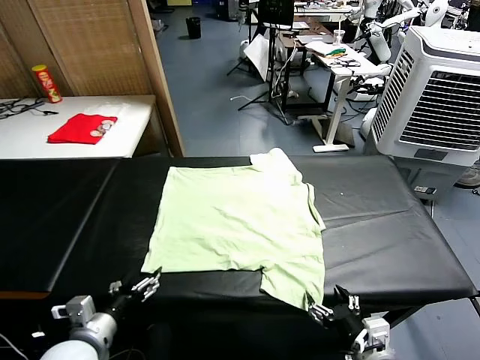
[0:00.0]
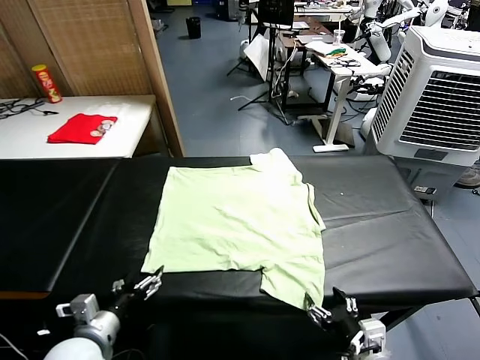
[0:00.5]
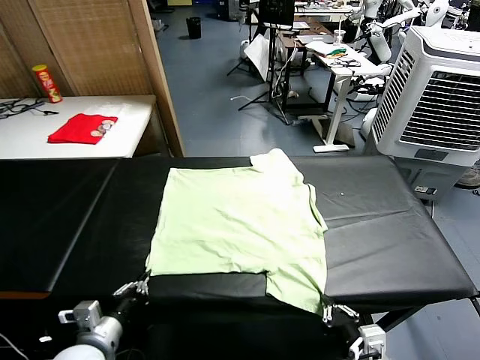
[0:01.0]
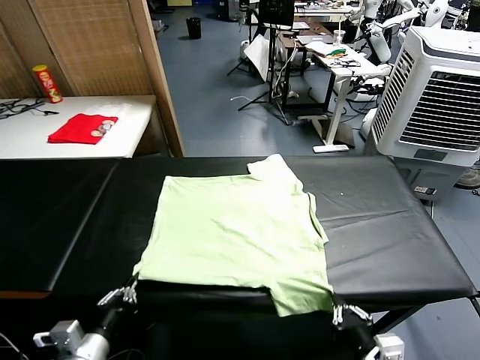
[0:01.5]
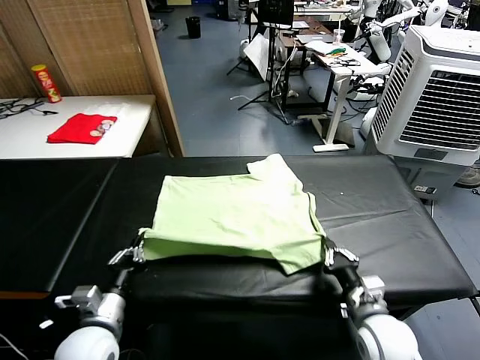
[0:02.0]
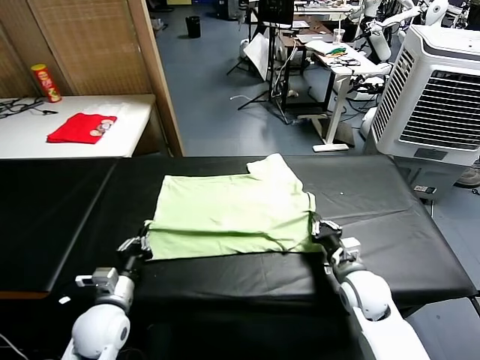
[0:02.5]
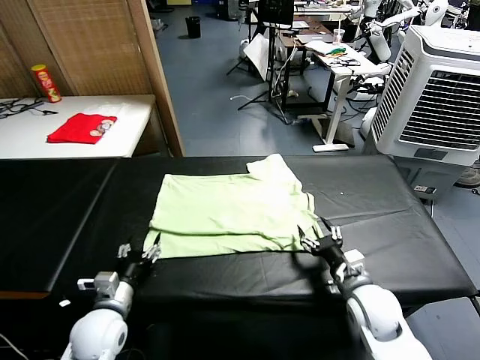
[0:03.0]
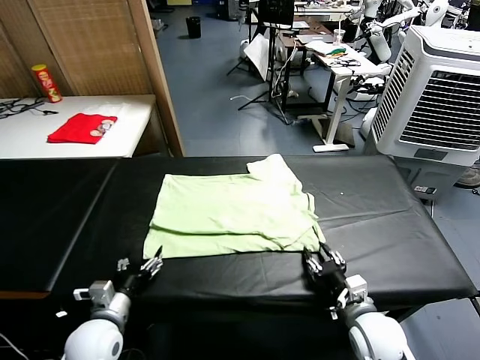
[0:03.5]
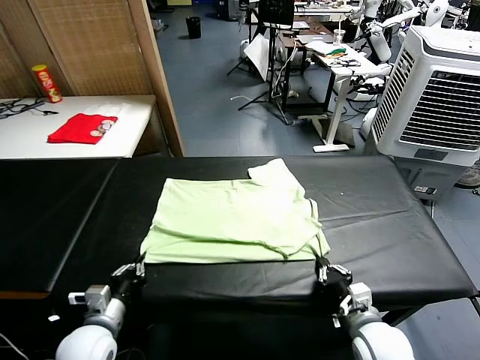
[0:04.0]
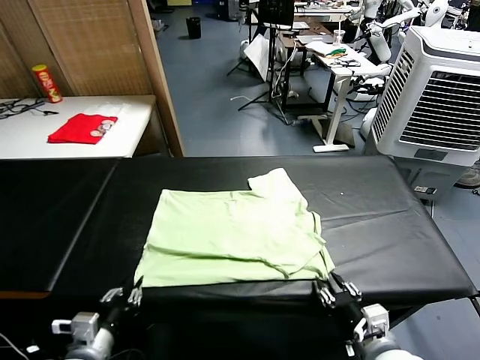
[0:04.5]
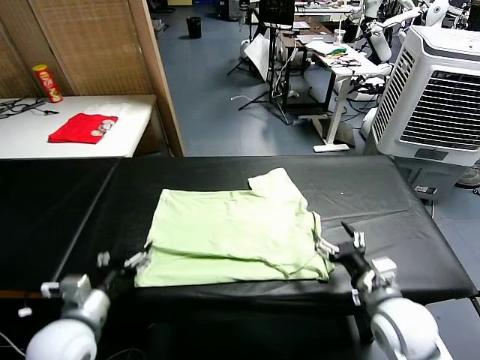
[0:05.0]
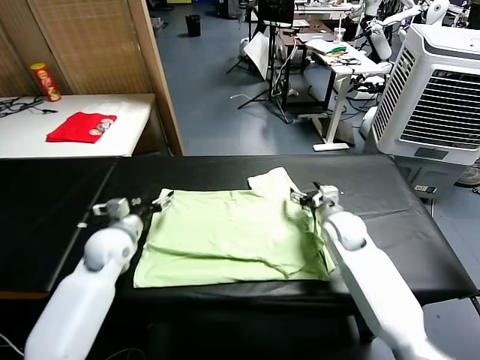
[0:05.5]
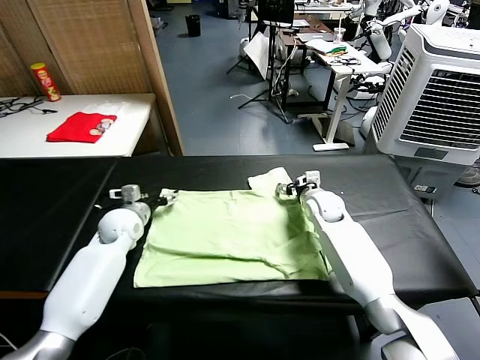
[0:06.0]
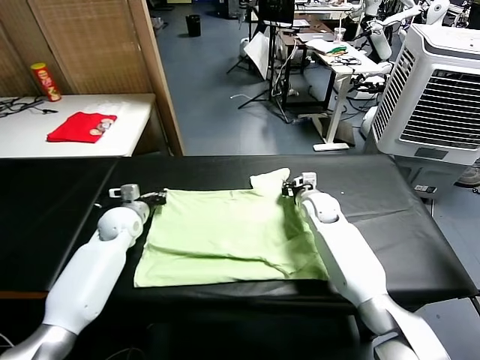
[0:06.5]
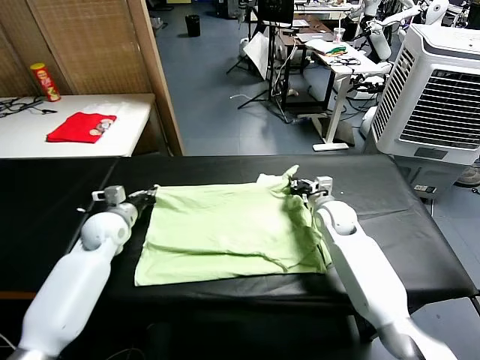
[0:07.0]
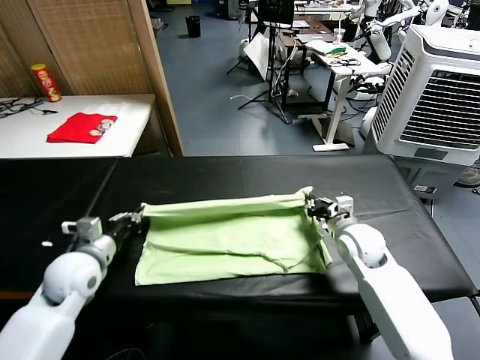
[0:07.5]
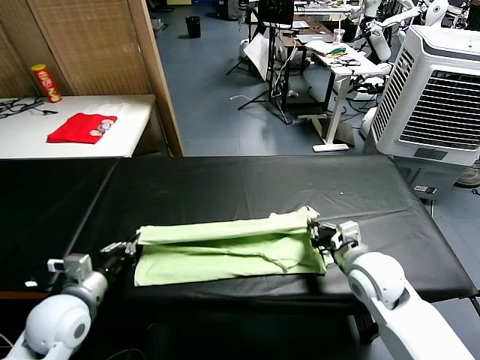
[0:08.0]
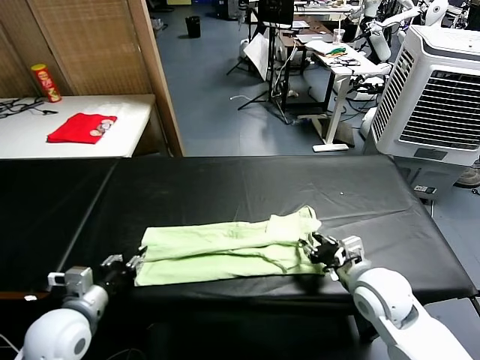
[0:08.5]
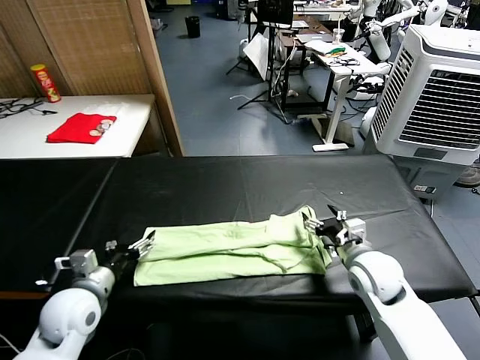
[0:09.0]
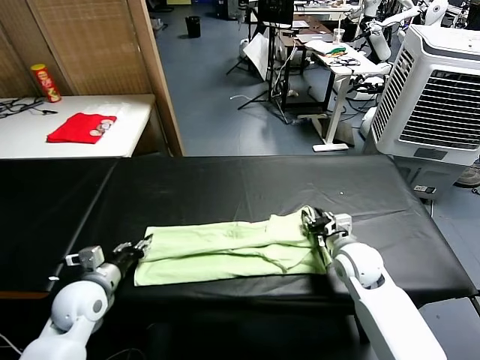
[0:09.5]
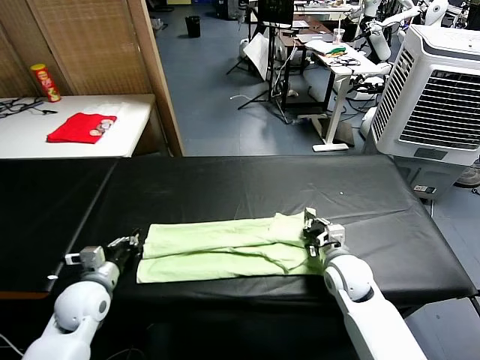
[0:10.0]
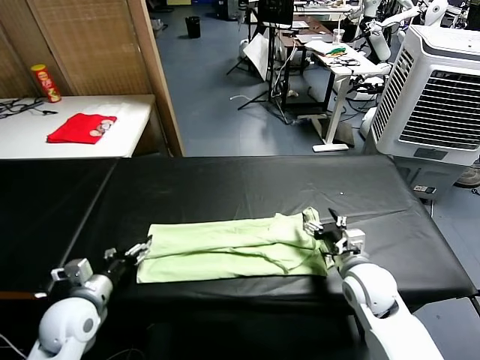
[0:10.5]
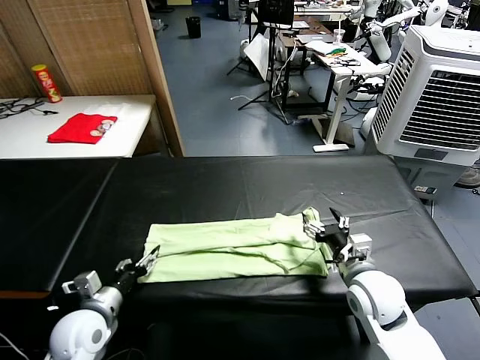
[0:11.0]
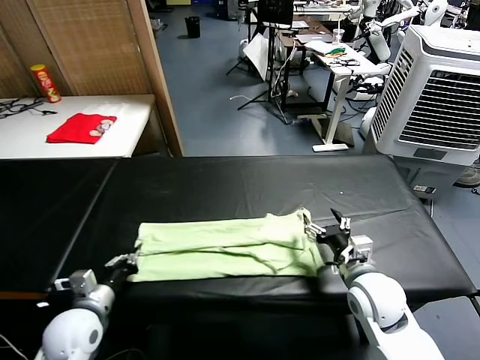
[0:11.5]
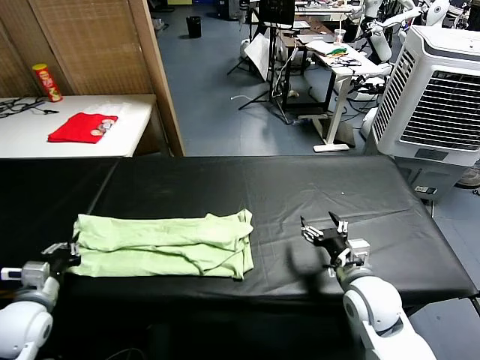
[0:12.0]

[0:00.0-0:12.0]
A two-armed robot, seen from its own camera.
Task of the whole recording: fold and organize the clothes.
Step, 0:00.0 to 0:00.5: use both grippers simultaneously to clamp the lower edge of the clothing fabric.
Step, 0:01.5 to 0:03.0: use both grippers to drag the lower edge of the fabric forward and fold it over the upper edge.
Step, 0:03.5 to 0:04.5: Drag the clothes downward with both gripper.
Step, 0:05.0 to 0:06.0: use both grippers simultaneously to clamp the upper edge of the clothing fabric.
Step, 0:06.5 to 0:08.5: use both grippers to drag the upper edge of the fabric backward and fold it over the lower edge.
Step, 0:09.0 to 0:11.0: use the left gripper to clamp the left edge of the fabric.
0:02.0 to 0:04.0: The left gripper opens and closes again; the right gripper moves backward, some 10 cm, and opens and closes again.
0:04.0 to 0:06.0: Both grippers travel together forward, approximately 30 cm. The right gripper opens its fingers; the left gripper opens its fingers.
0:06.0 to 0:08.0: The two grippers go about 25 cm backward. The left gripper closes up. The right gripper closes its fingers.
0:08.0 to 0:10.0: The right gripper travels downward by about 5 cm, and opens and closes again, while the left gripper goes roughly 10 cm forward and downward, and opens, then closes again.
0:10.0 to 0:12.0: The left gripper travels to the left and backward by approximately 10 cm, and opens, then closes again. The right gripper is displaced backward by about 5 cm, and opens up.

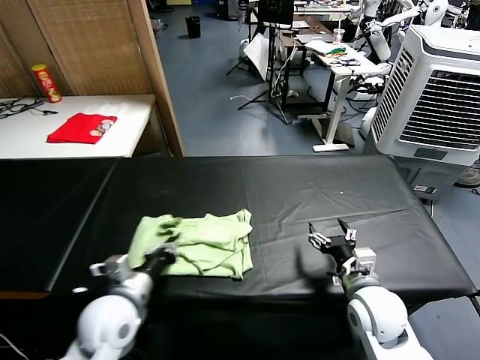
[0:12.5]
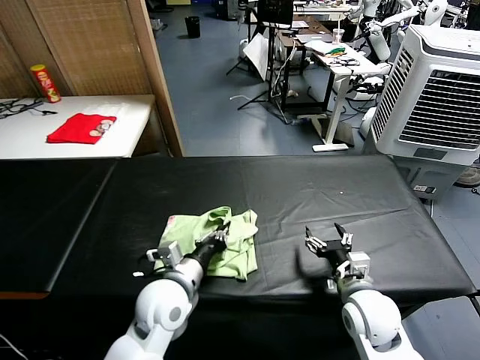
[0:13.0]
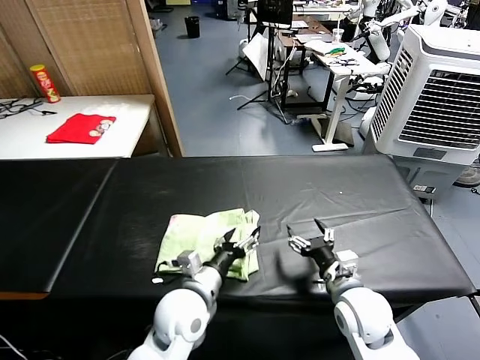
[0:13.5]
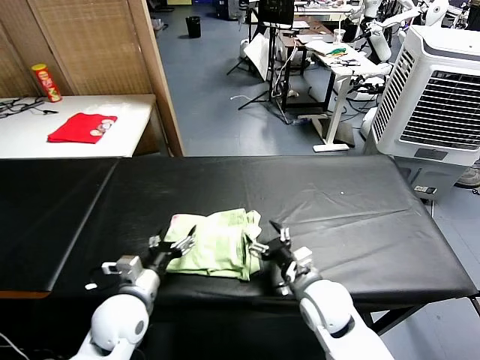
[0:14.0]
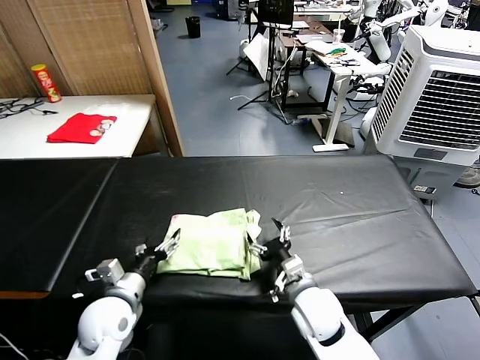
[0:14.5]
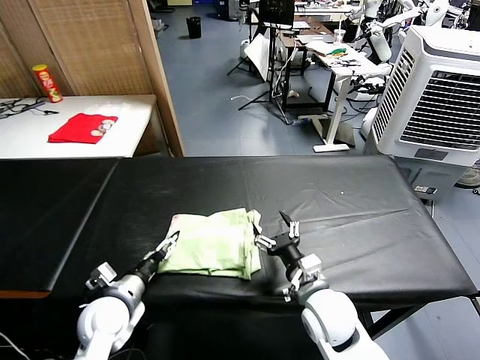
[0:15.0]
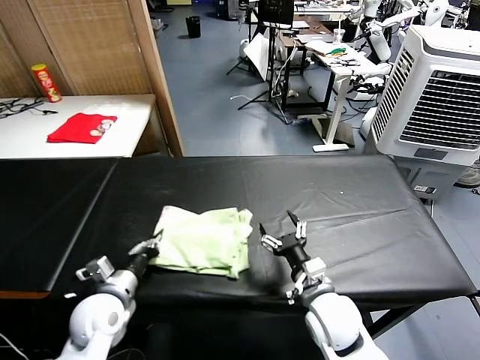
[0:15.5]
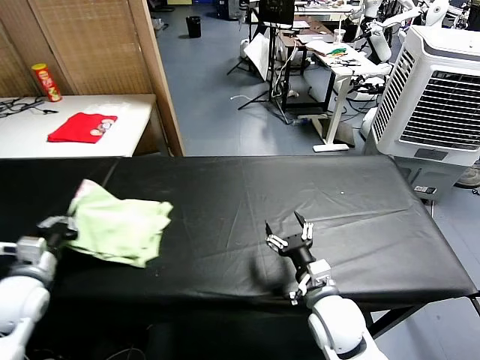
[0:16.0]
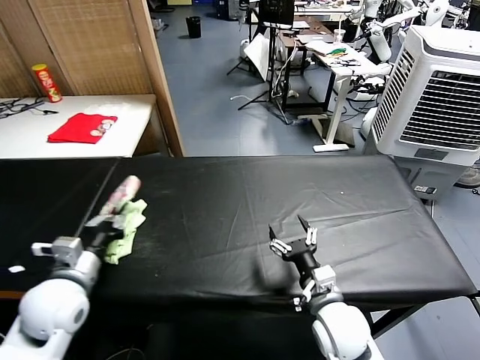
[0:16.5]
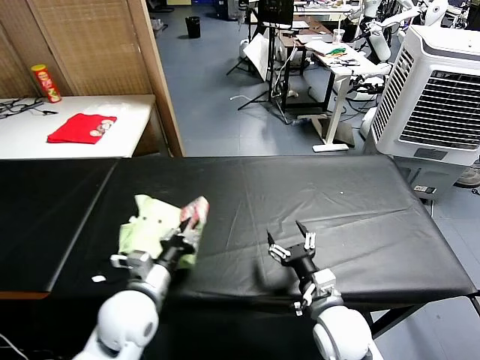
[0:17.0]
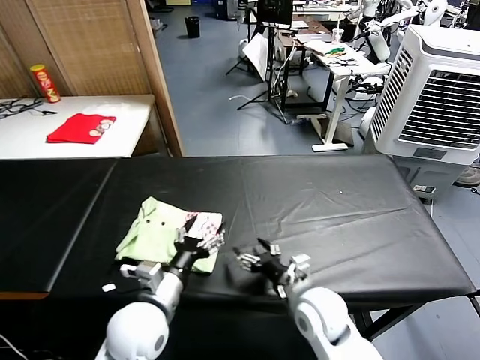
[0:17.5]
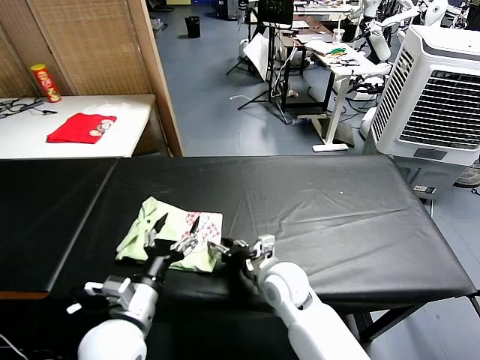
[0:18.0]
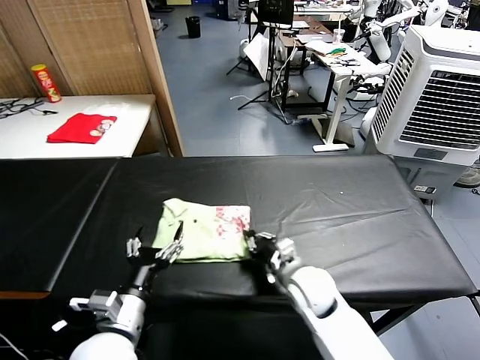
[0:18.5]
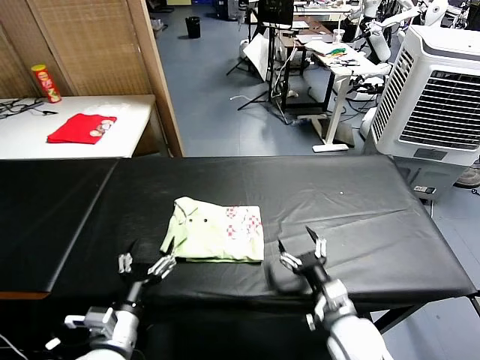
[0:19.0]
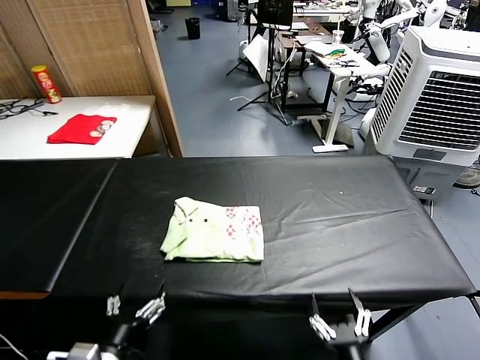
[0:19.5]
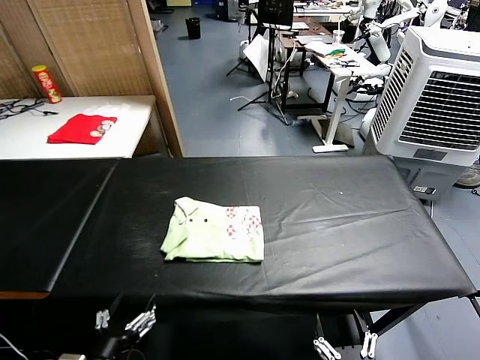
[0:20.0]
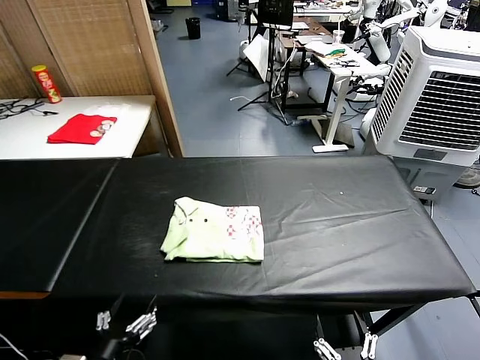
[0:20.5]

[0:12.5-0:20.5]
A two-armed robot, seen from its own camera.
Task of the whole recording: fold and organize the clothes.
Step, 0:14.0 to 0:17.0: Flip the folded clothes over with left gripper.
Step, 0:17.5 to 0:18.5: Drag the clothes to the center of the table.
0:12.5 to 0:14.5: The right gripper heads to the left, covering some 10 cm; the left gripper reaches some 10 cm to the right, then returns, and opens.
0:14.5 to 0:16.5: The right gripper moves some 5 cm. Meanwhile the left gripper travels upward and to the left by approximately 10 cm, and closes.
0:16.5 to 0:18.5: The left gripper travels to the right and backward by some 15 cm, and opens up. Meanwhile the right gripper shifts about 10 cm forward, and closes.
0:18.5 to 0:20.5: The left gripper shifts about 10 cm backward. Meanwhile the right gripper heads backward, covering about 30 cm, and opens up.

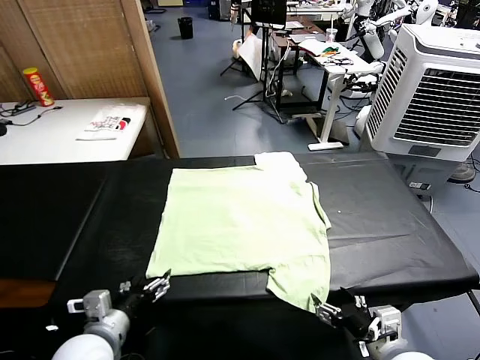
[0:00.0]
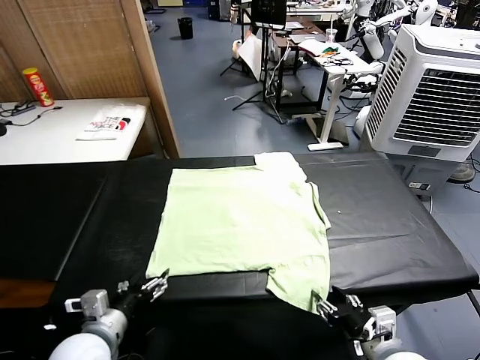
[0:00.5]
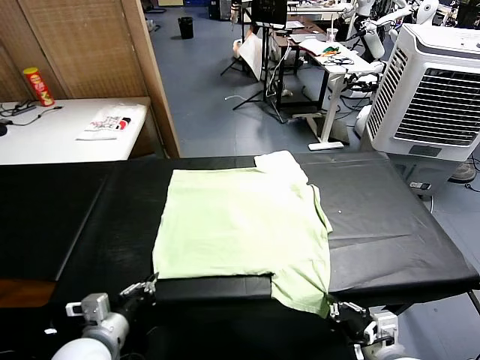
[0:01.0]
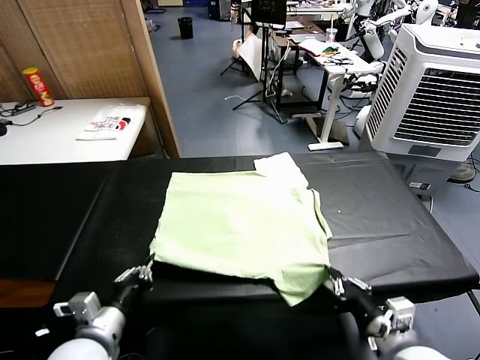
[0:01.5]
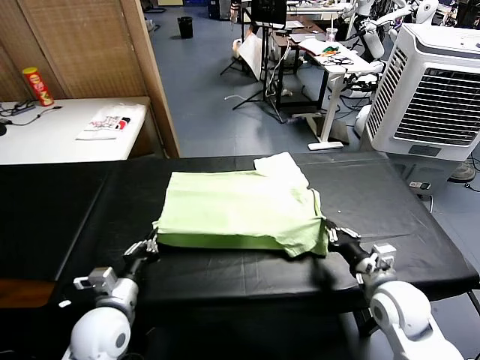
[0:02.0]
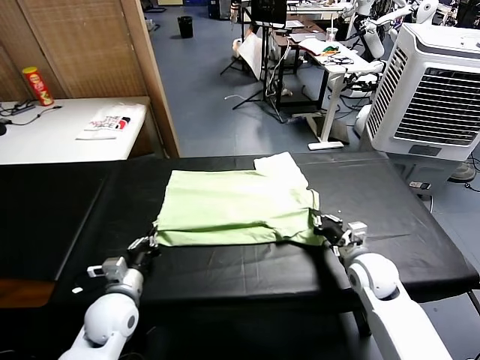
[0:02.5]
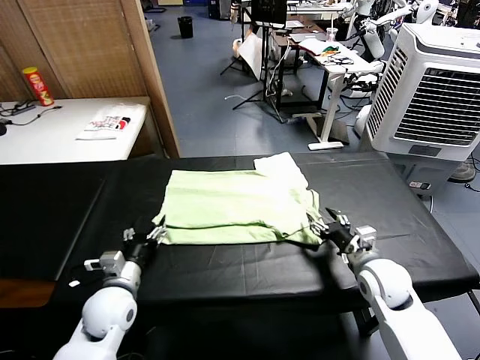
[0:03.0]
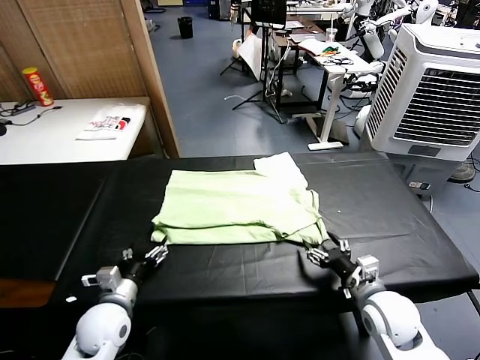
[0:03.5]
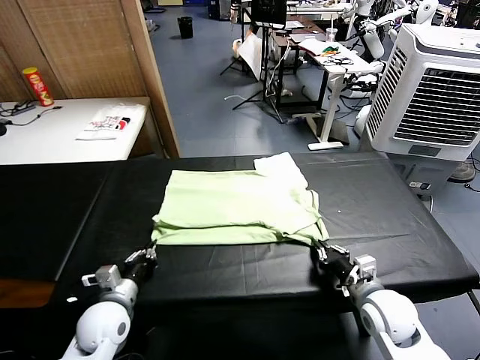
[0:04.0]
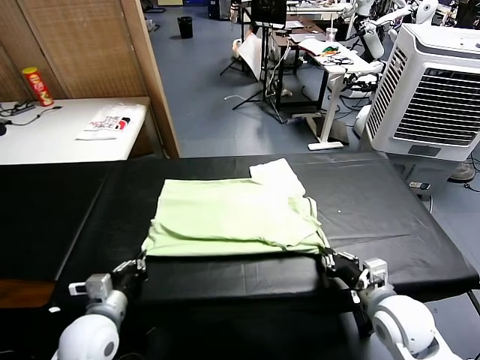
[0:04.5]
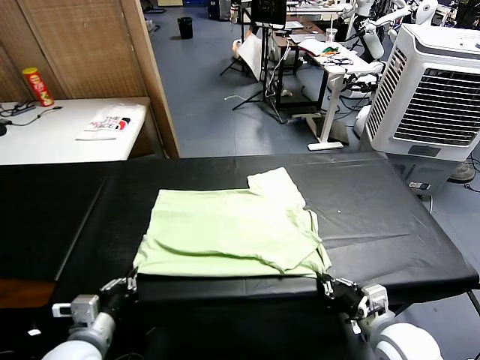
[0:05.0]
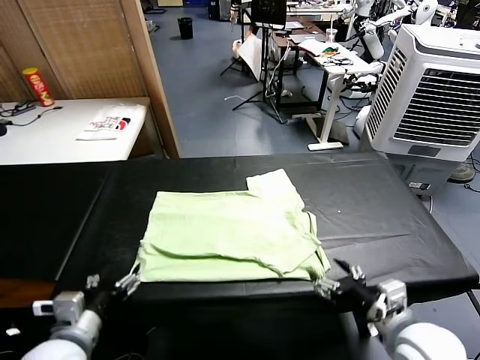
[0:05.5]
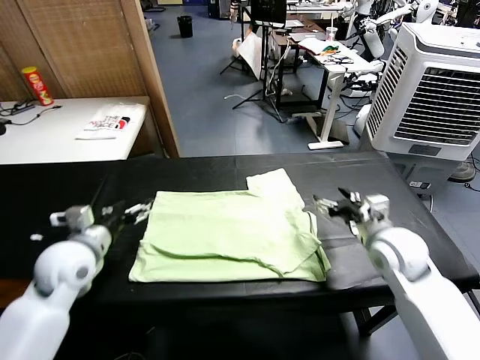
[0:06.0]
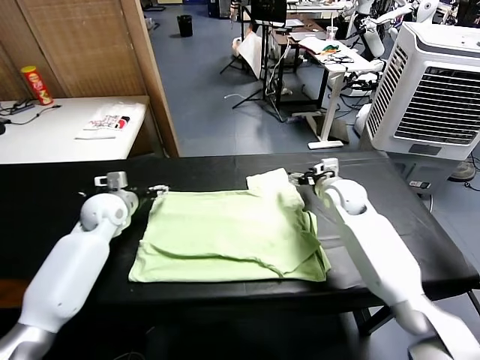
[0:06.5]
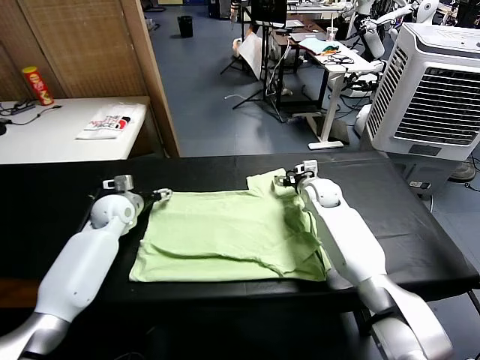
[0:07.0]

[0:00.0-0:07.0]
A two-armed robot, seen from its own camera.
Task of the whole recording: fold and organize the clothes.
Step, 0:00.0 to 0:01.0: use both grippers simultaneously to clamp the lower edge of the clothing fabric.
Step, 0:01.5 to 0:03.0: use both grippers to drag the lower edge of the fabric forward and fold it over the upper edge.
Step, 0:03.5 to 0:05.0: Drag the clothes downward with both gripper.
0:02.0 to 0:03.5: The right gripper changes place by approximately 5 cm, and opens. The left gripper opens.
0:03.5 to 0:05.0: The left gripper goes approximately 10 cm backward and upward, and closes its fingers, while the right gripper travels backward by about 5 cm.
0:05.0 to 0:07.0: Both grippers travel together forward, about 35 cm. The left gripper opens up. Meanwhile the right gripper opens up.
